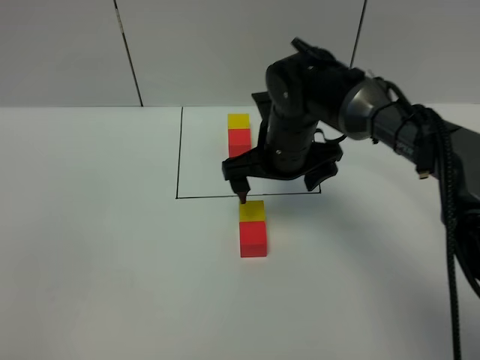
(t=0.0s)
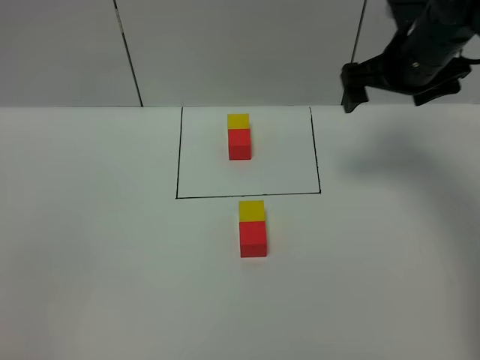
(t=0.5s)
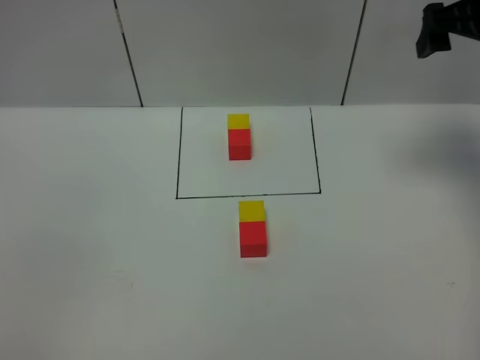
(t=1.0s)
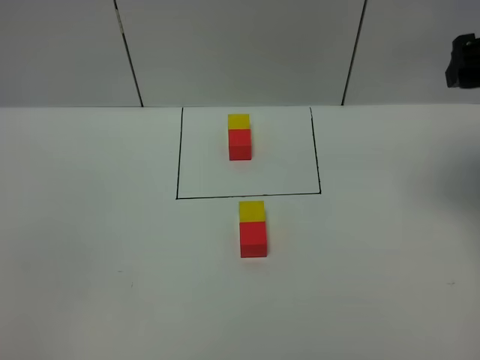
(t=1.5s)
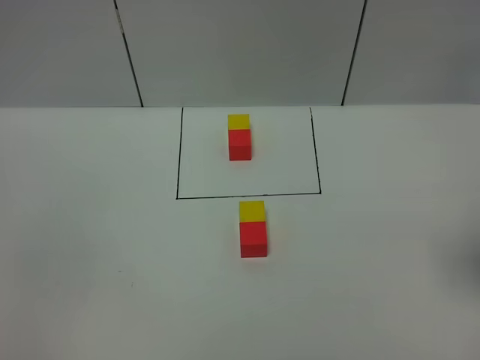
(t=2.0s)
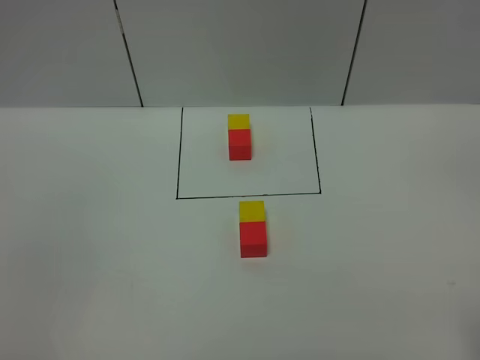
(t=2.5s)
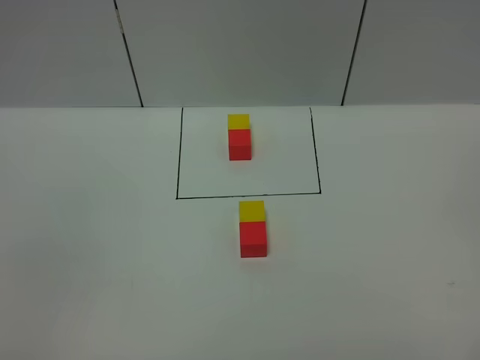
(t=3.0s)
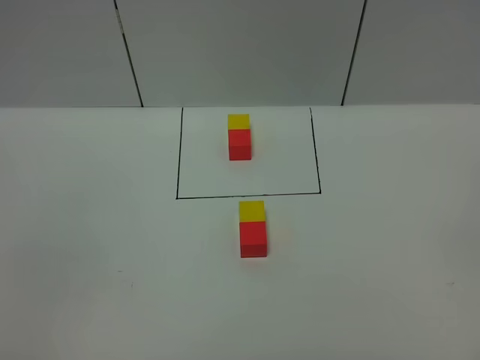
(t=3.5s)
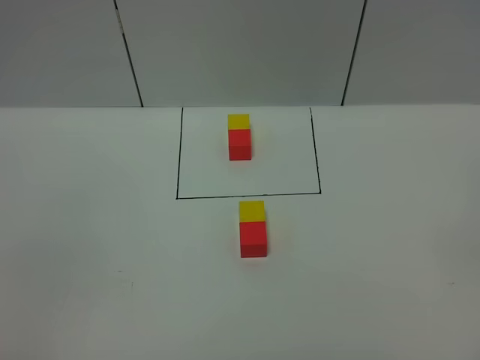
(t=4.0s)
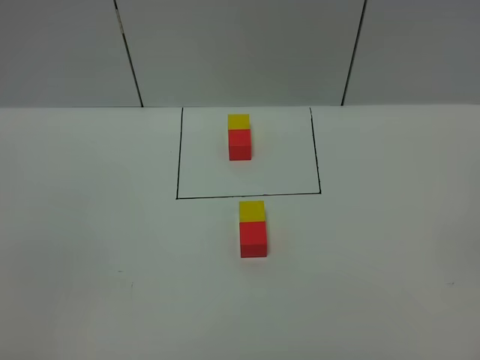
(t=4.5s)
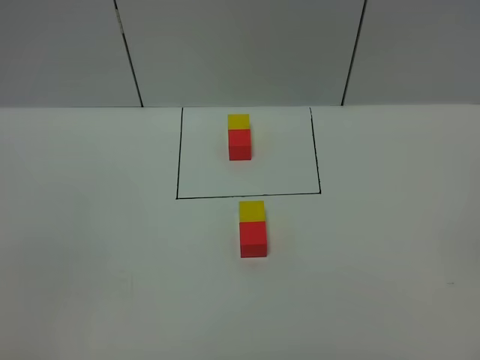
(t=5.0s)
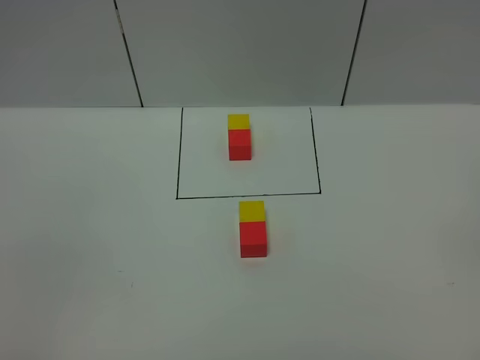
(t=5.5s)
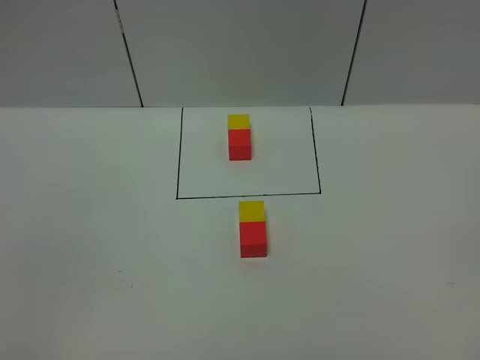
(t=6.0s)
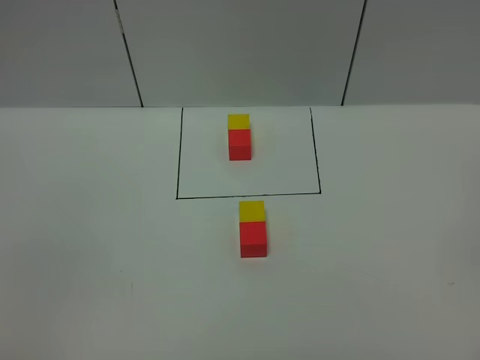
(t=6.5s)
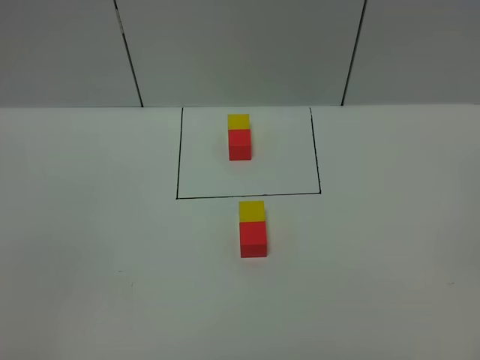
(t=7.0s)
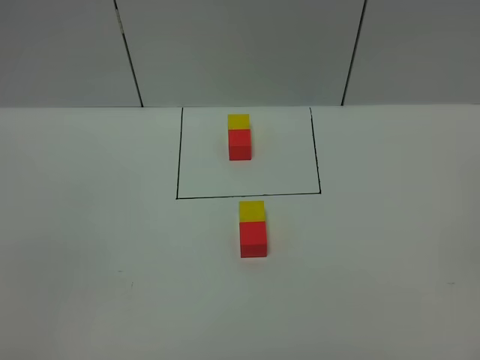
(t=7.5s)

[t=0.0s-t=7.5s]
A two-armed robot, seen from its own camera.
Task of the whole recording: According to the building block template in front, assemble the scattered blocks together.
t=0.0s to t=2.0s: The right gripper is displaced to the right, backward and upward by about 35 cm.

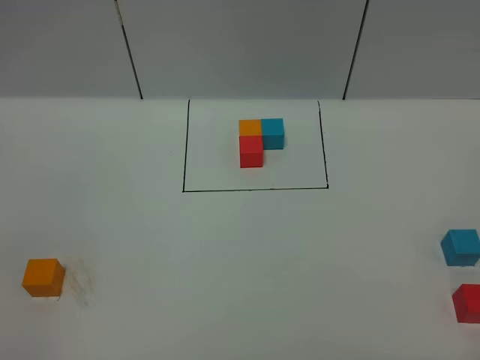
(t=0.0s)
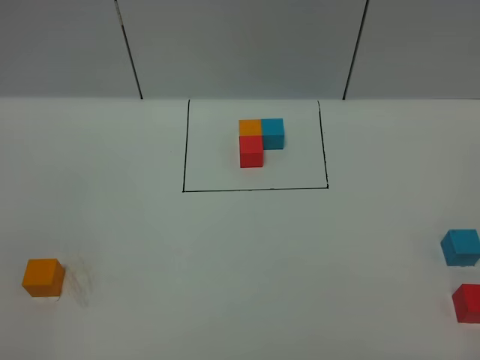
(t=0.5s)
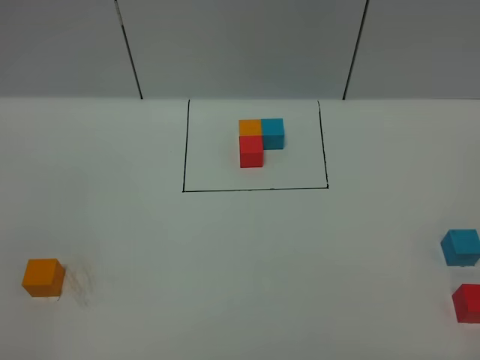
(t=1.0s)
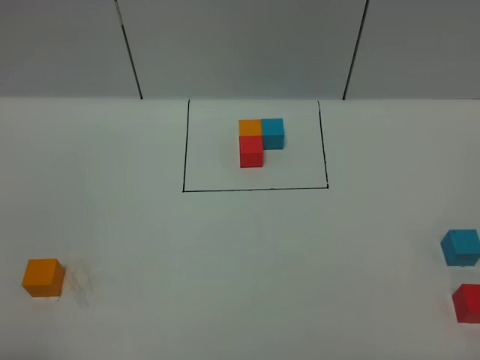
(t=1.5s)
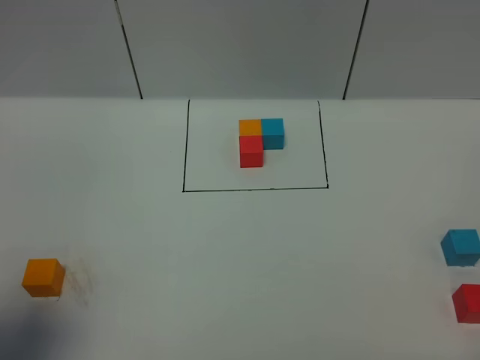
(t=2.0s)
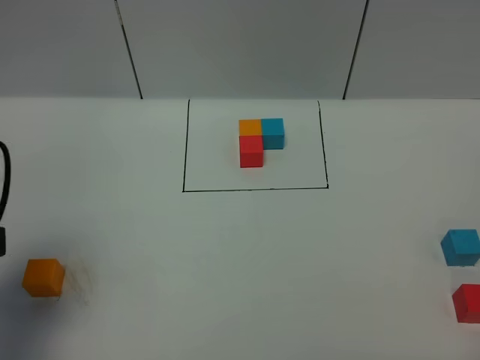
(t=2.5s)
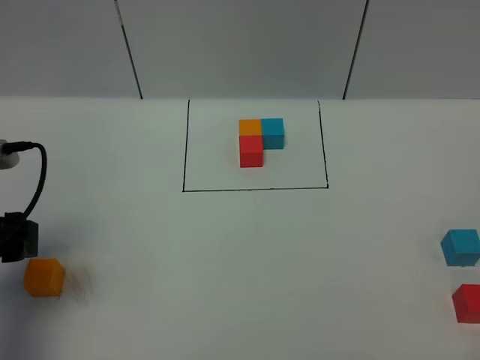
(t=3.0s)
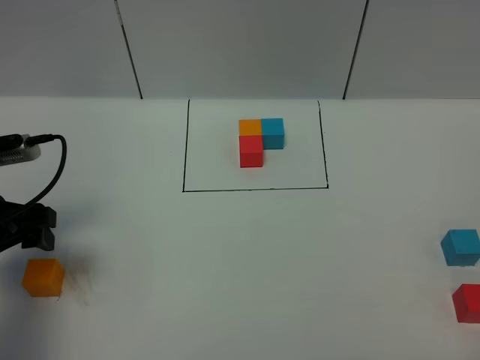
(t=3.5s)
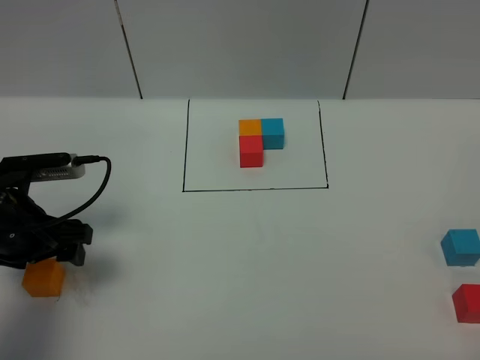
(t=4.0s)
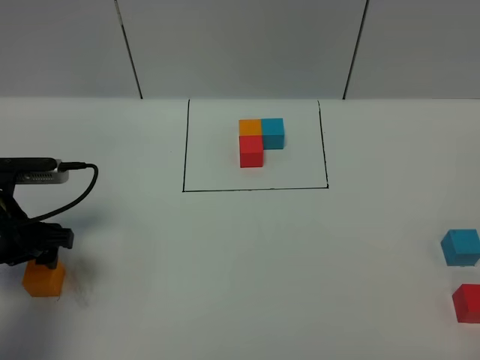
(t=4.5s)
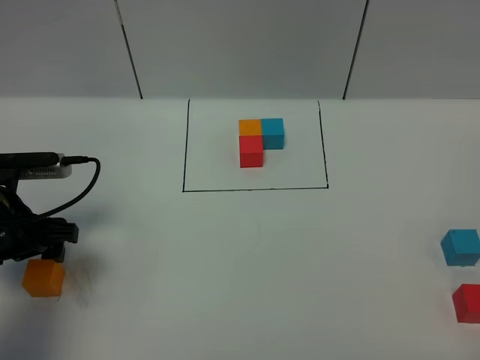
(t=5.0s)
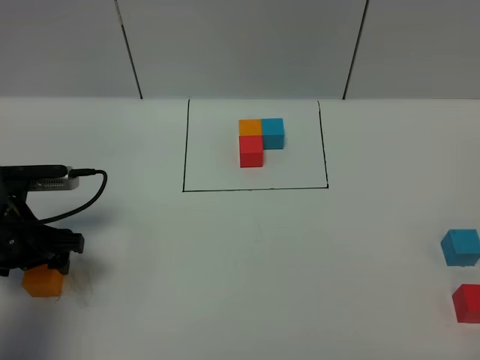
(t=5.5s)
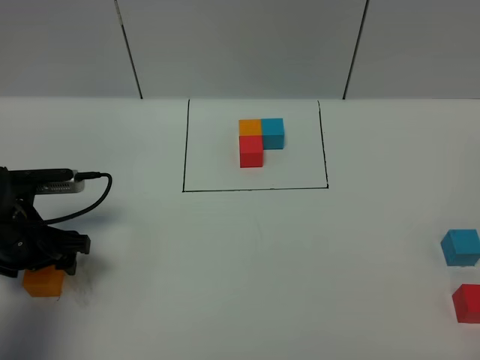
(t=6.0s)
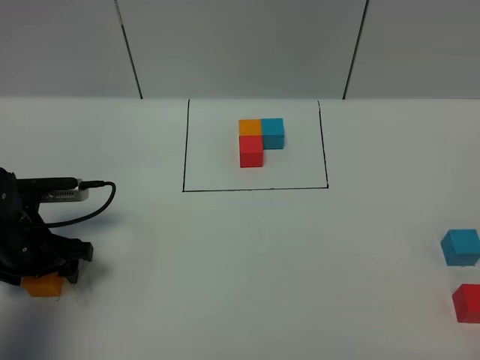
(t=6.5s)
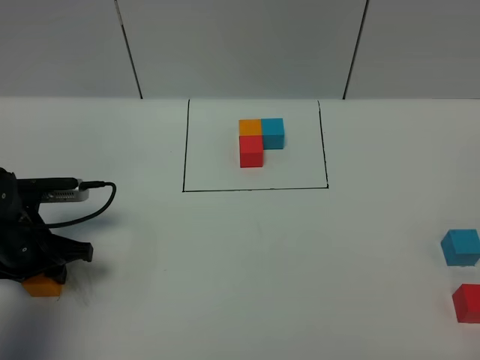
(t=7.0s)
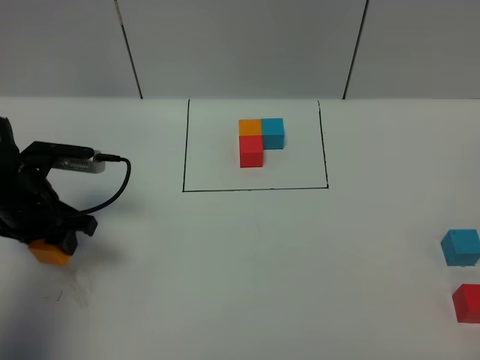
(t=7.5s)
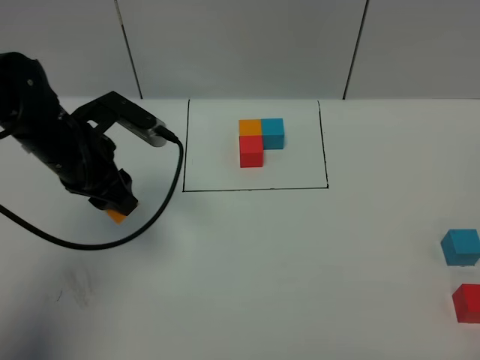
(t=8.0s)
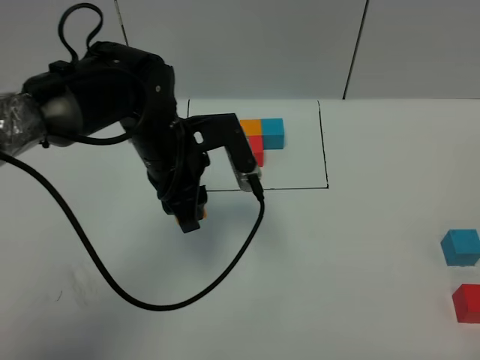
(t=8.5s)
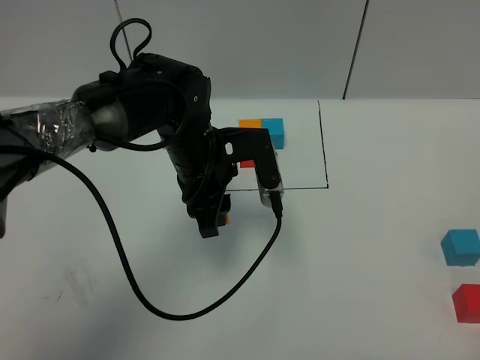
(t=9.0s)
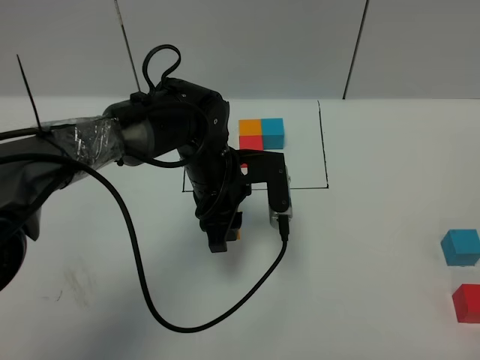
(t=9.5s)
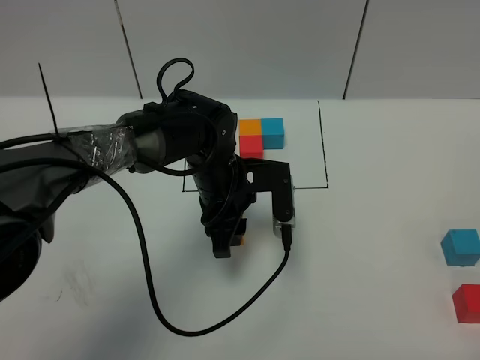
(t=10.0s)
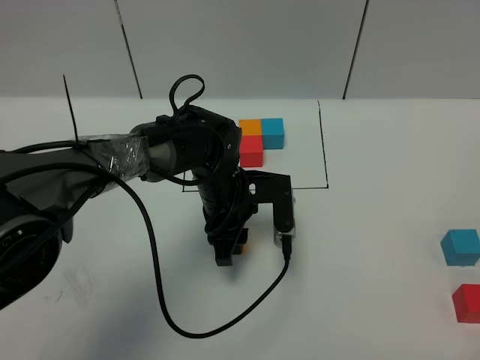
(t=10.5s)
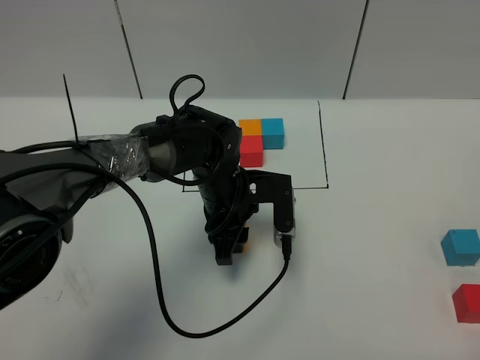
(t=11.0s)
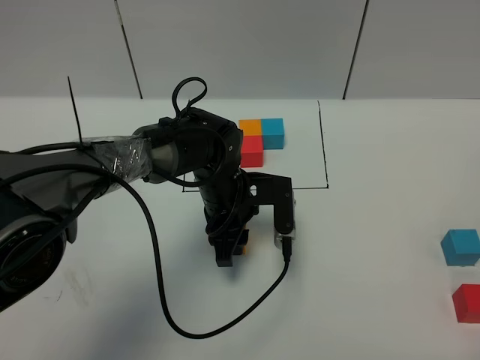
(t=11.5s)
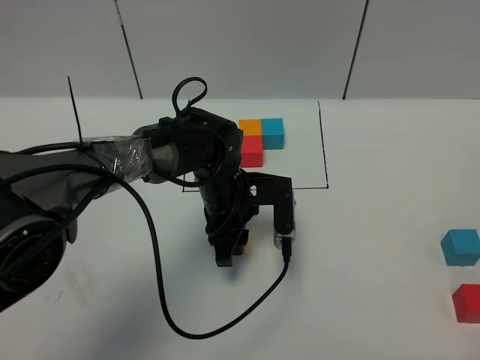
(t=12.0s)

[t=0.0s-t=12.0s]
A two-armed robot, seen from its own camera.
Task of the whole recording: According to the building block template in front, assemble the scattered blocks together.
t=0.0s to t=2.0s: The left gripper is displaced forward by about 15 cm.
t=2.0s to t=4.0s: The left gripper is displaced forward and downward by approximately 20 cm.
t=4.0s to t=6.0s: The grippers stay close to where they were, moving slightly.
t=6.0s to t=8.0s: The left gripper shifts some 15 cm to the right, upward and forward, and closes up.
t=8.0s to t=10.0s: The left gripper heads to the right and downward, covering approximately 20 cm.
t=10.0s to t=12.0s: The grippers move only a little.

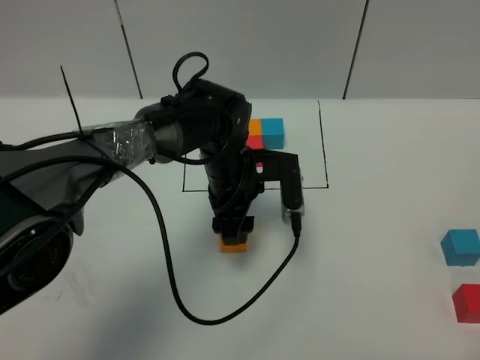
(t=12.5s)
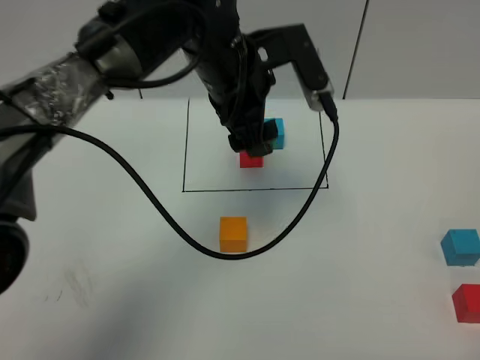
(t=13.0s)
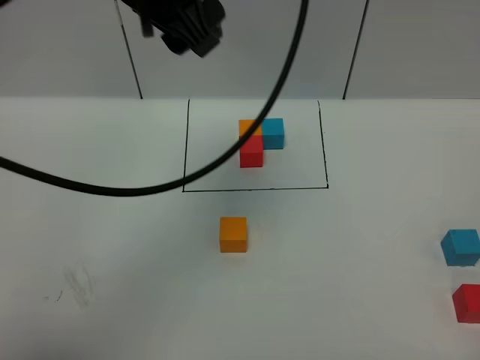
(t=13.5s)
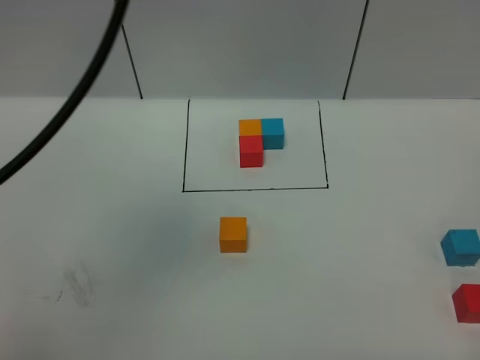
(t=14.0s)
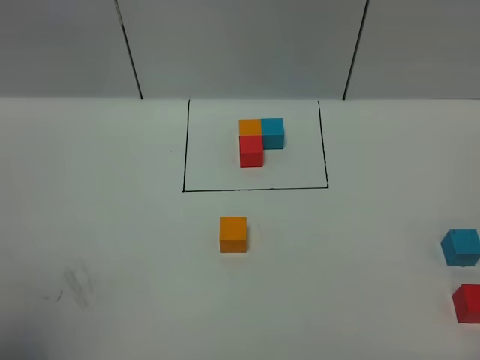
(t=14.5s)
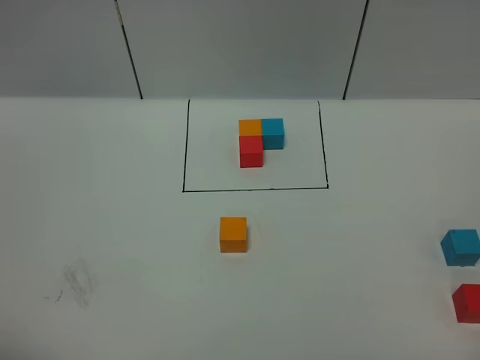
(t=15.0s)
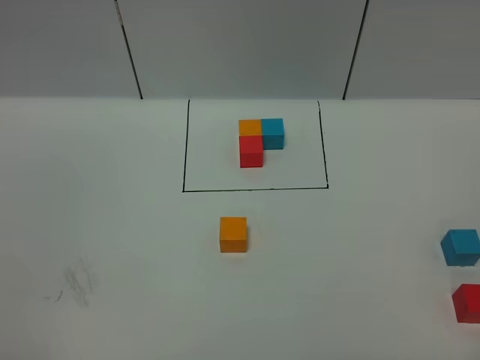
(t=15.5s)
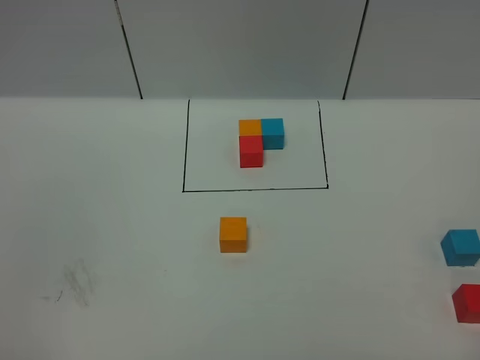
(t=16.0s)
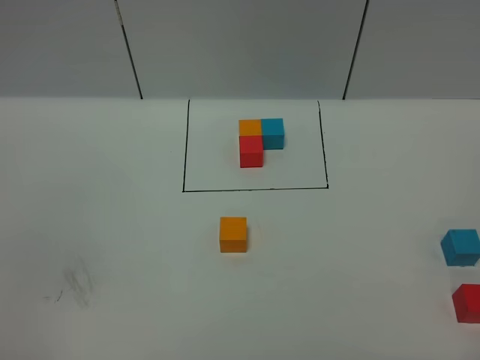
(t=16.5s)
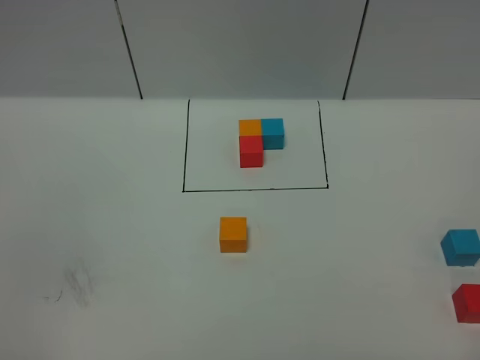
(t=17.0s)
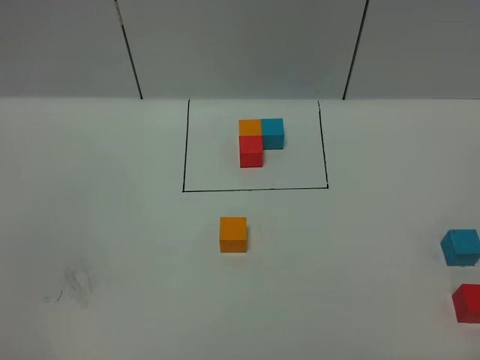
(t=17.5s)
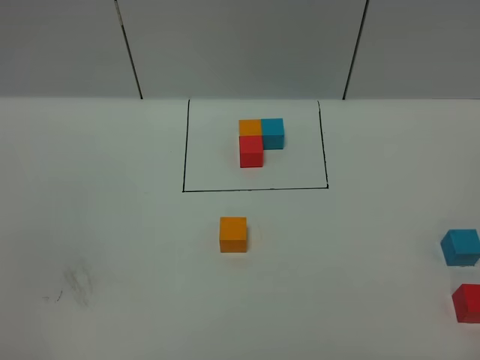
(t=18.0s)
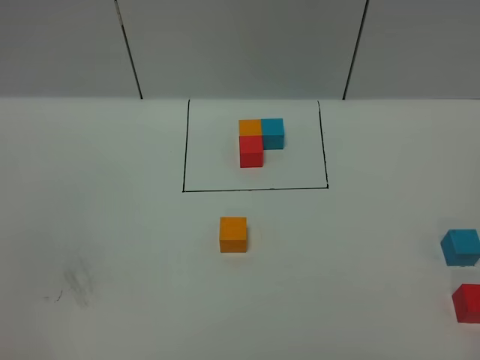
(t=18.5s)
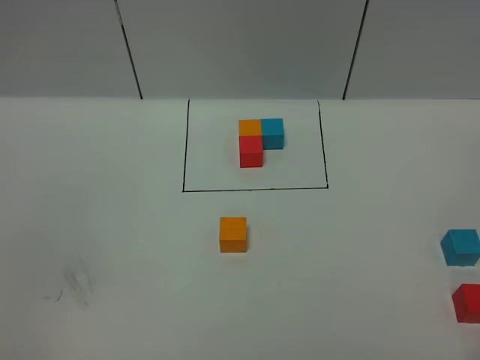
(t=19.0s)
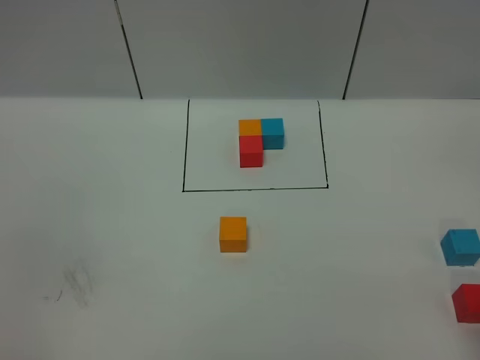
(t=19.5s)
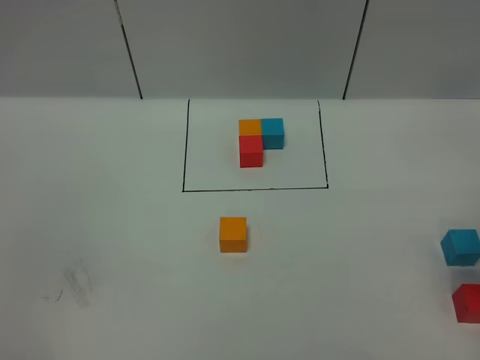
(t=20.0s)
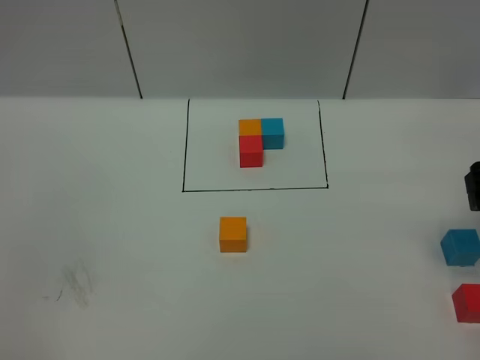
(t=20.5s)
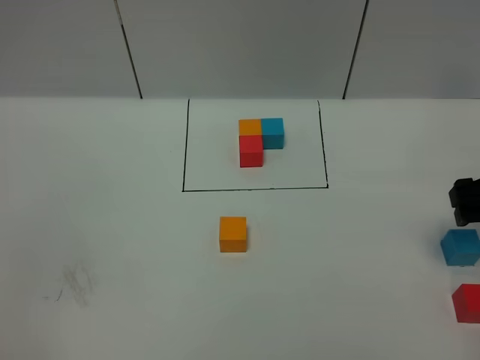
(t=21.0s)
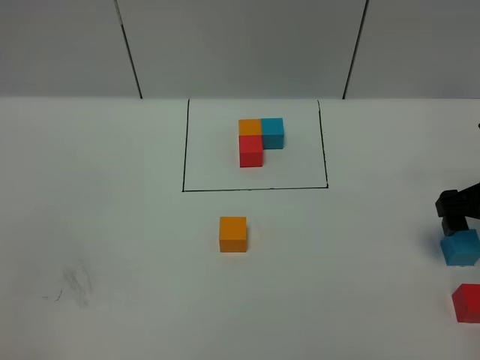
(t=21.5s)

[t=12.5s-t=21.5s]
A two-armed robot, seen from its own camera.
Task of the whole recording: According to the building block template in front, assemble the scattered blocks together.
t=12.5s to t=14.5s: The left gripper is displaced upward, backward and to the left by some 50 cm.
t=14.5s to t=17.0s: The left gripper heads downward, covering roughly 25 cm.
t=19.5s to t=21.5s: The right gripper heads forward and downward, covering roughly 25 cm.
